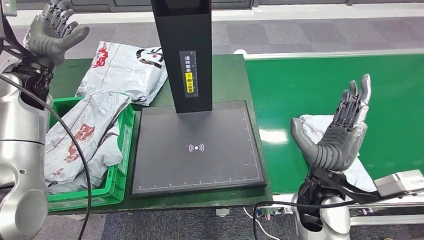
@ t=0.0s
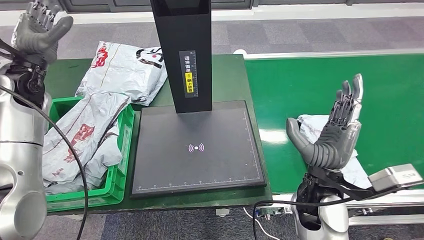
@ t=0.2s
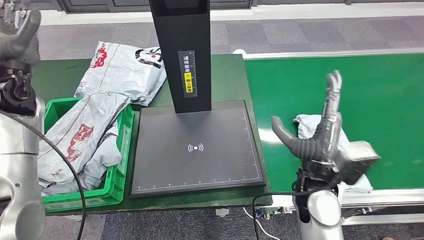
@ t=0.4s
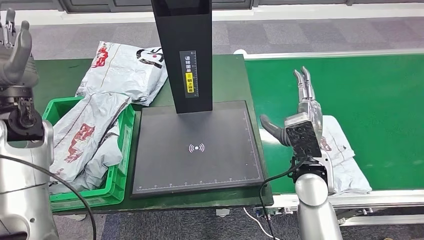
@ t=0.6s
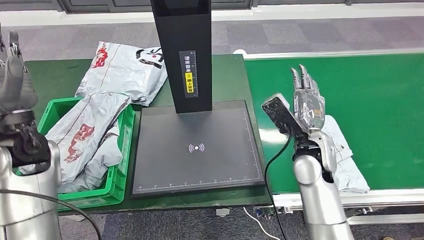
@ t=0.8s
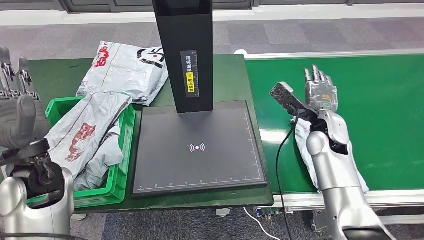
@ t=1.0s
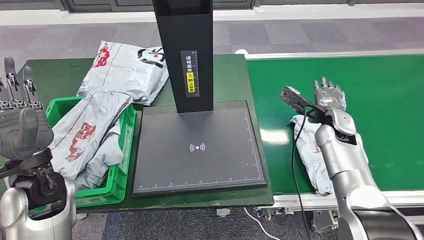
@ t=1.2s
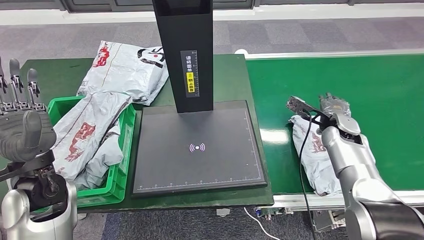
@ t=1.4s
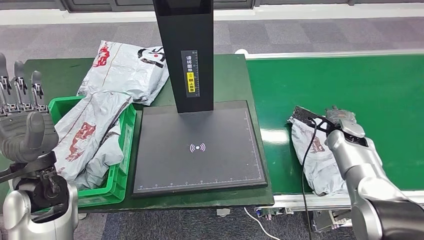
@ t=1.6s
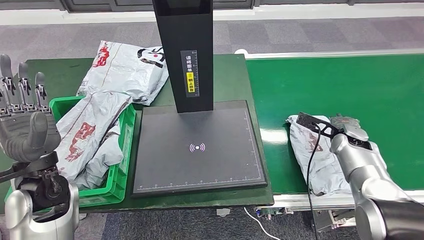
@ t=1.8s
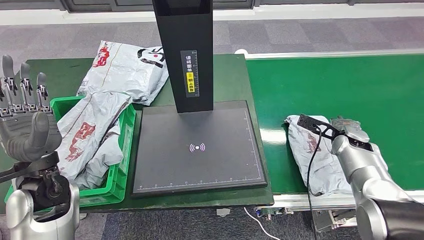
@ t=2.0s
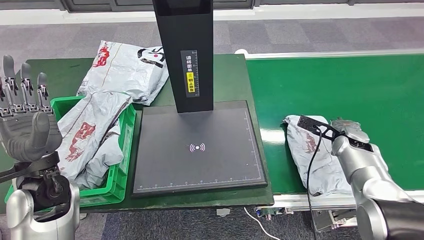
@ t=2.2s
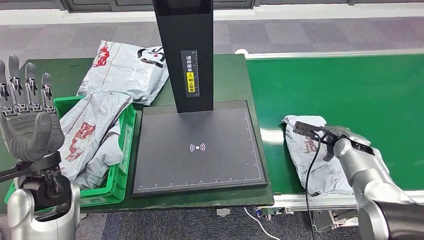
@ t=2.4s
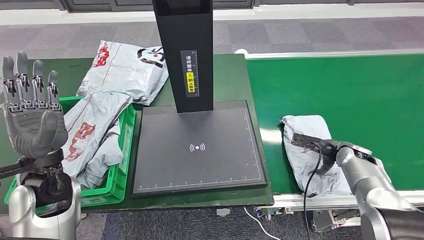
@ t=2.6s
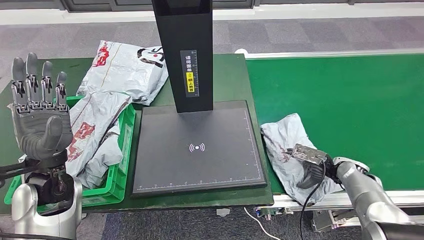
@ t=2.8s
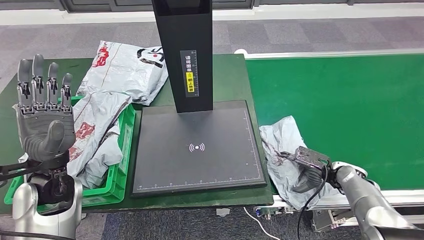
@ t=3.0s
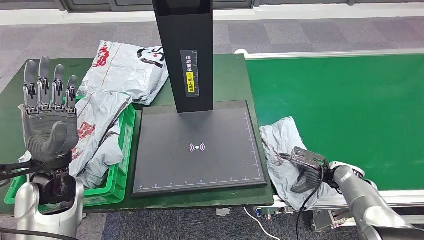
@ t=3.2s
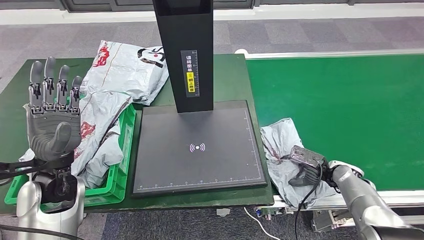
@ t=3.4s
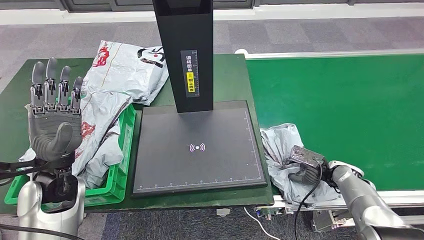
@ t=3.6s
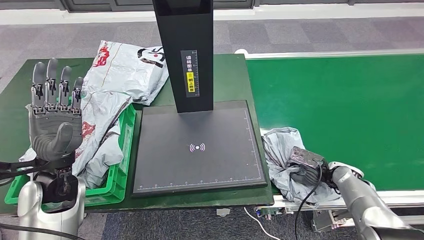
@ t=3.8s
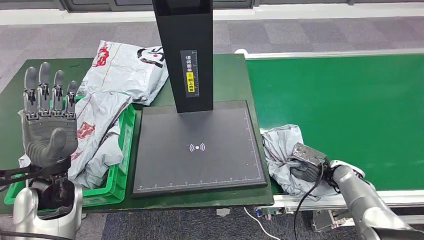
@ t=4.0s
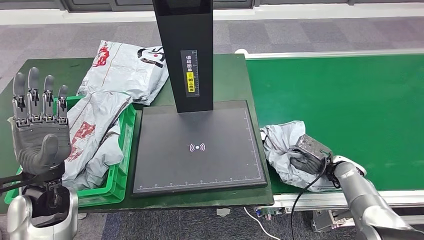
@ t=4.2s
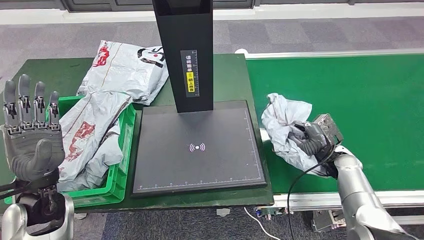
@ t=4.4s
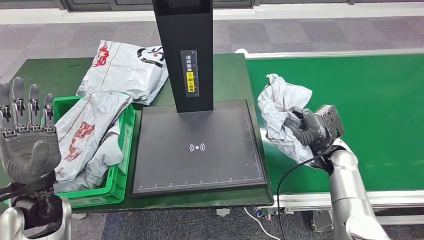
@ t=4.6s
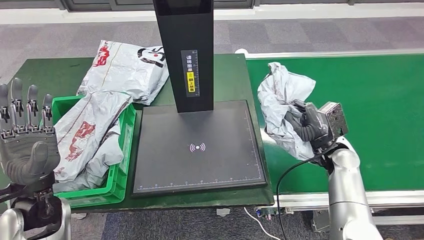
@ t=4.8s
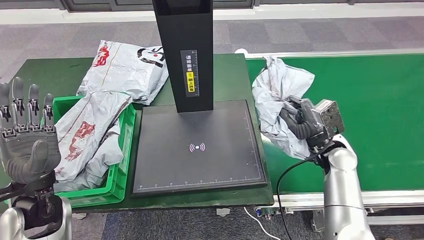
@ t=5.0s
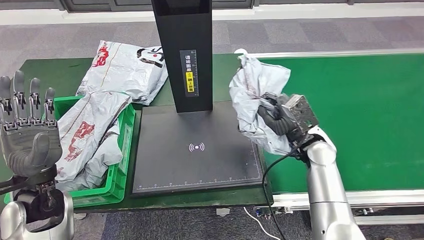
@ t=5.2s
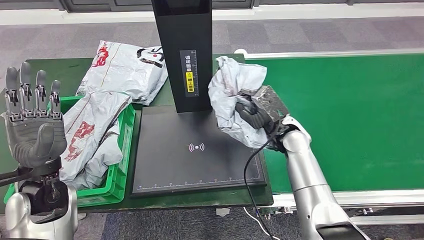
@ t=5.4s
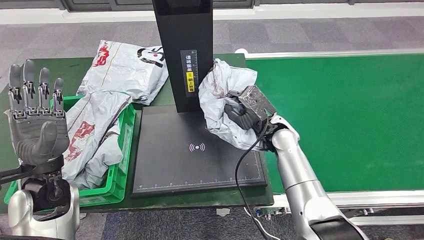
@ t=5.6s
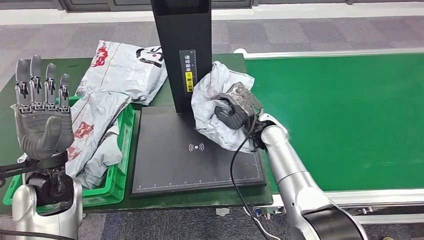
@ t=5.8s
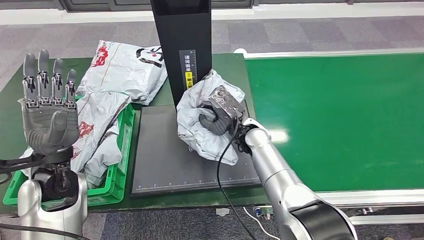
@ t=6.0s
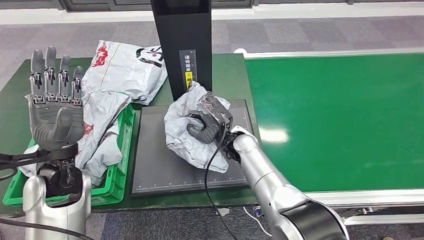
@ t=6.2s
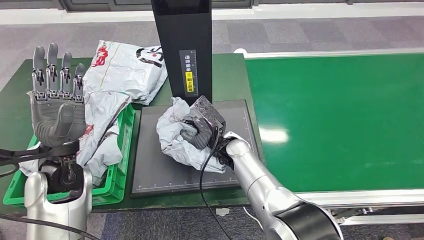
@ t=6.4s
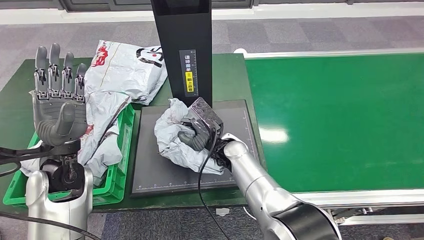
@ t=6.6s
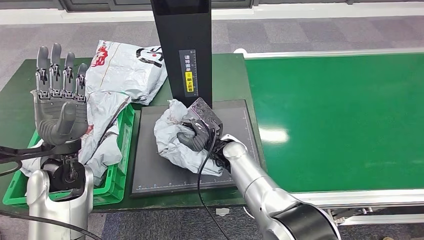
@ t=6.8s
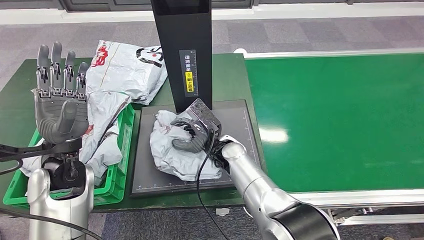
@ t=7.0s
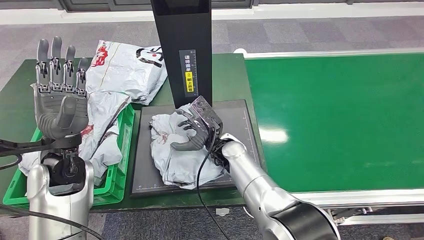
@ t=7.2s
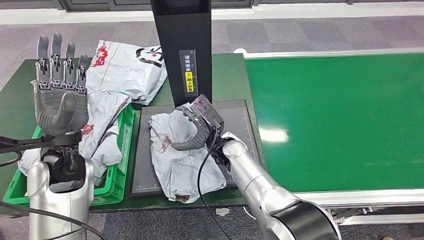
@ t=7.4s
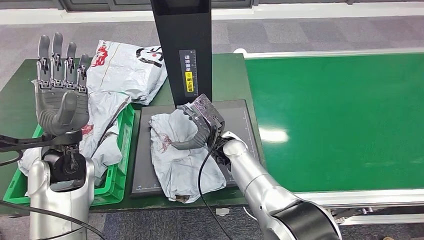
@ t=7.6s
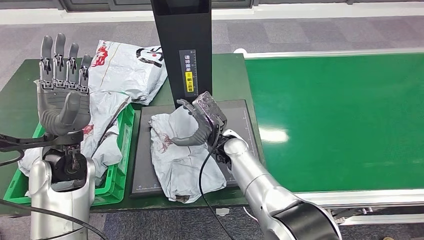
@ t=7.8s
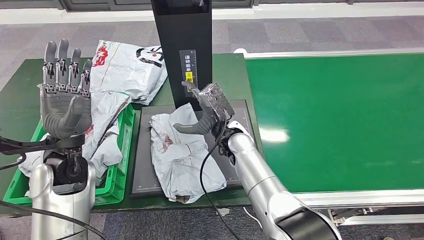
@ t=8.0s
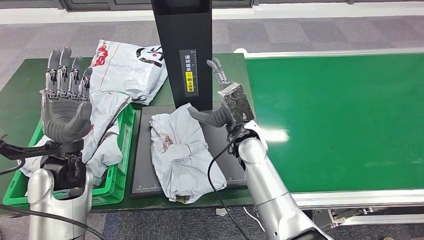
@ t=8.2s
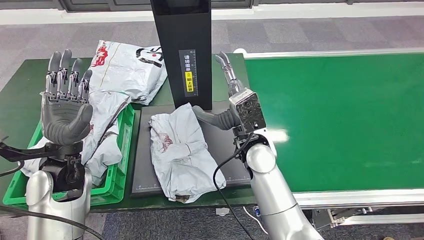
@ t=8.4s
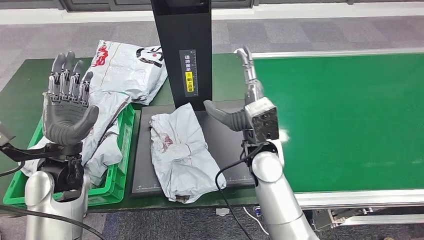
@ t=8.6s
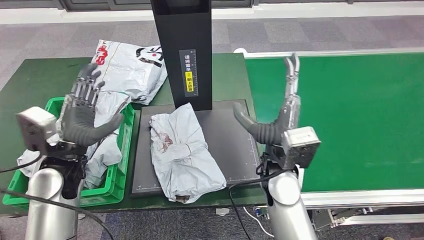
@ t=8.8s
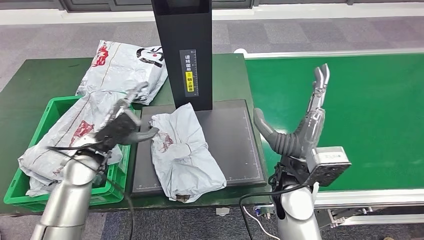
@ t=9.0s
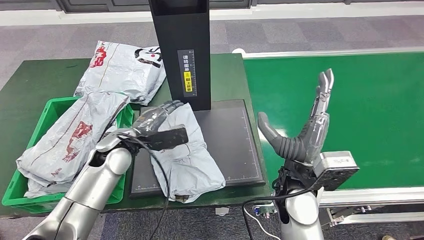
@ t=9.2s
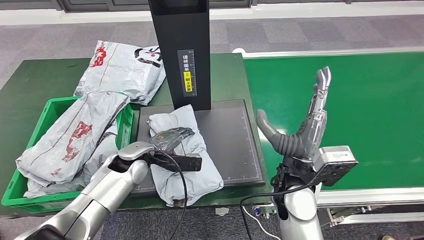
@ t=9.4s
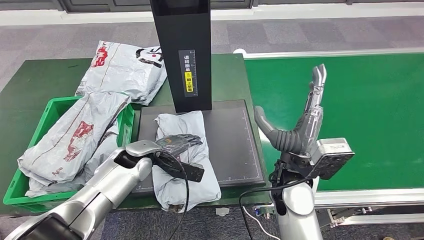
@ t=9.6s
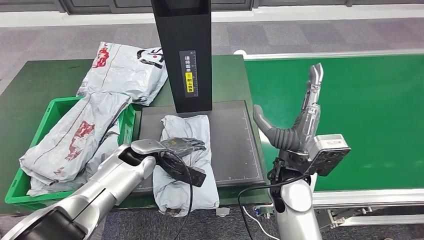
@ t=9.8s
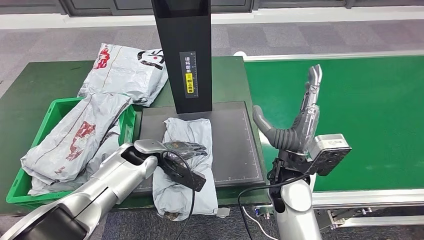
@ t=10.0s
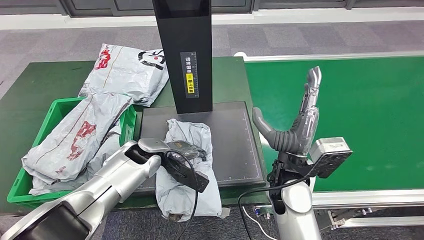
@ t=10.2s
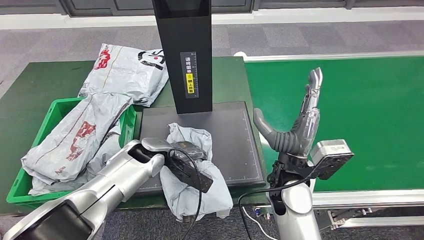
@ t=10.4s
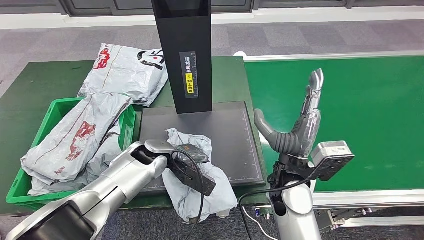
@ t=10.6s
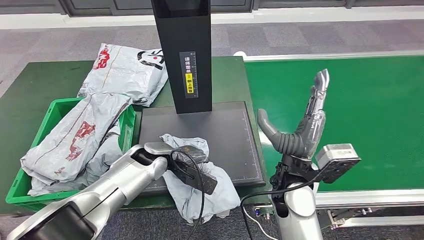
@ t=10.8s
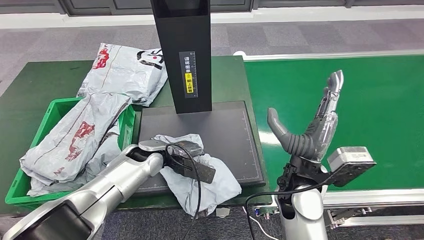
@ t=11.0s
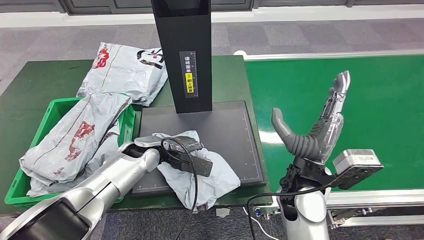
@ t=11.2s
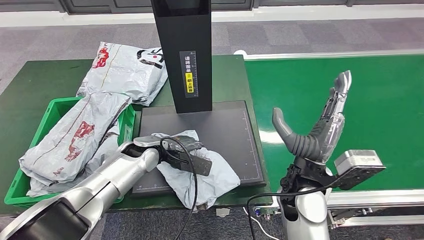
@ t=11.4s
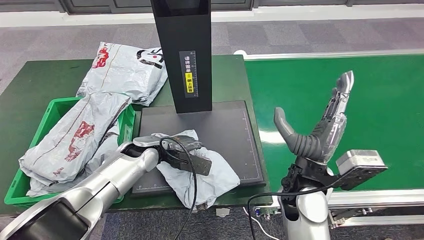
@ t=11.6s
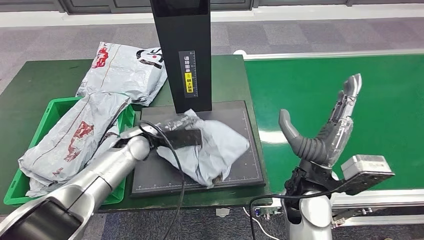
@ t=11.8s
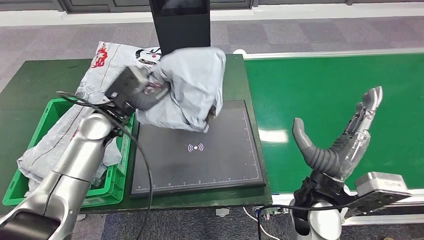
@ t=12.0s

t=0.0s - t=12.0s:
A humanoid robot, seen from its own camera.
Step, t=2.6s - t=5.4s: Pick up the parcel from the conveyor belt.
Step, t=5.6s - t=8.8s: Place the parcel onto the inbound machine.
t=1.6s - t=3.0s: The right hand shifts roughly 15 cm downward and backward.
t=3.0s - t=4.4s: The right hand moves approximately 5 cm.

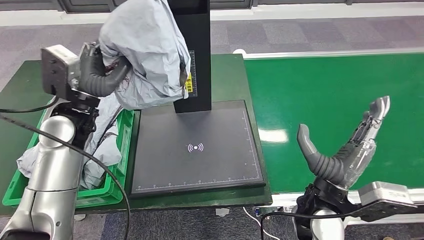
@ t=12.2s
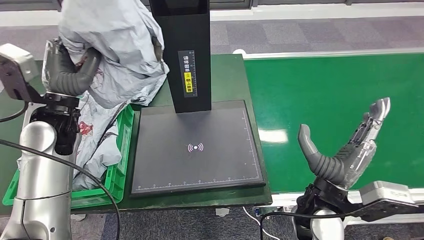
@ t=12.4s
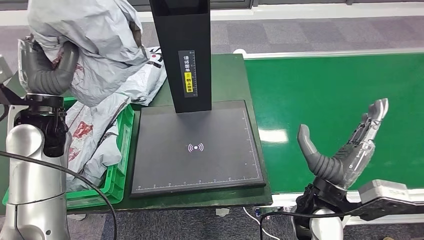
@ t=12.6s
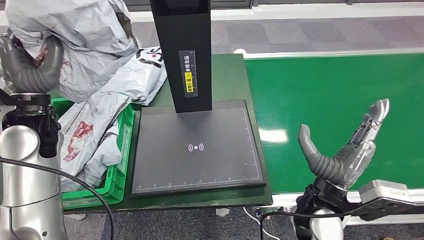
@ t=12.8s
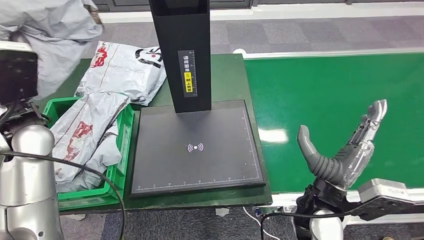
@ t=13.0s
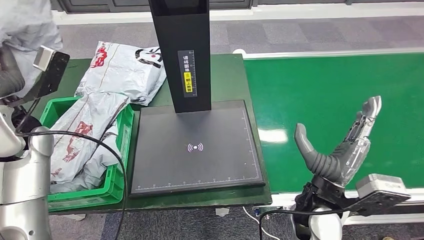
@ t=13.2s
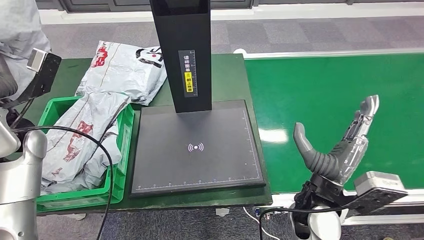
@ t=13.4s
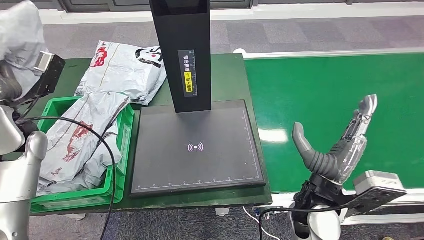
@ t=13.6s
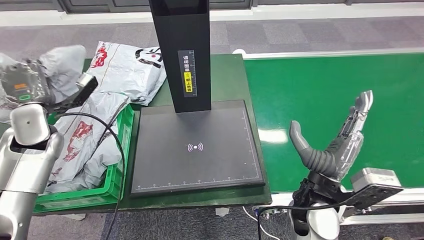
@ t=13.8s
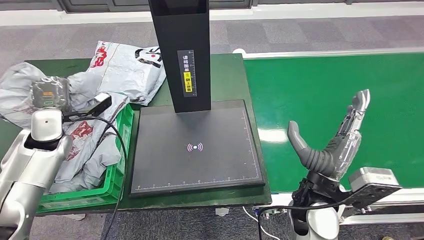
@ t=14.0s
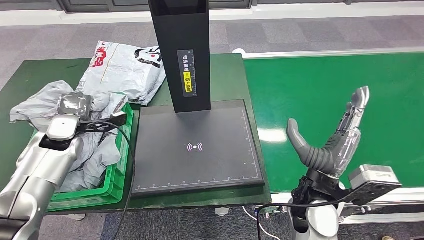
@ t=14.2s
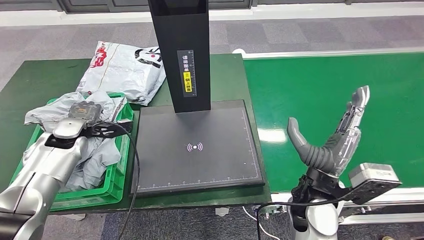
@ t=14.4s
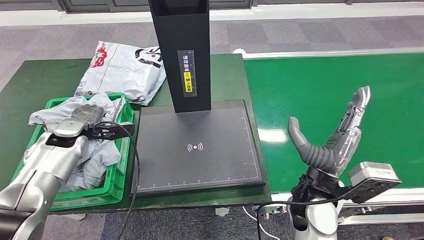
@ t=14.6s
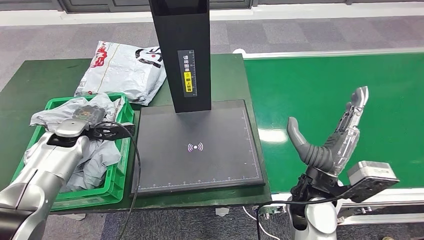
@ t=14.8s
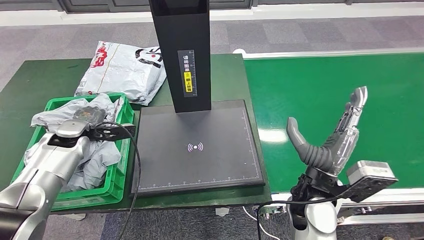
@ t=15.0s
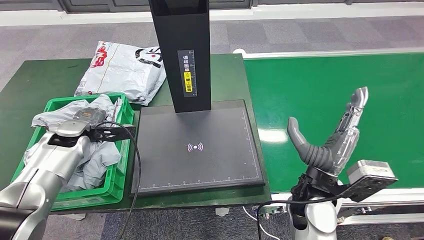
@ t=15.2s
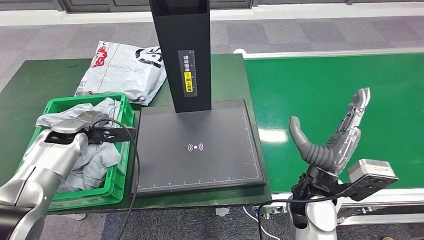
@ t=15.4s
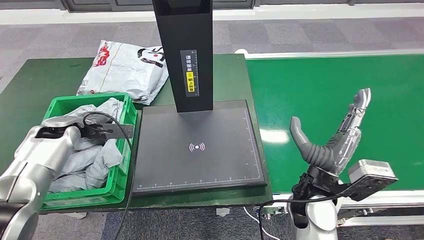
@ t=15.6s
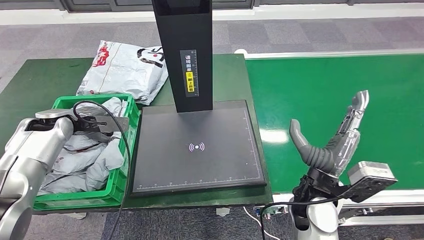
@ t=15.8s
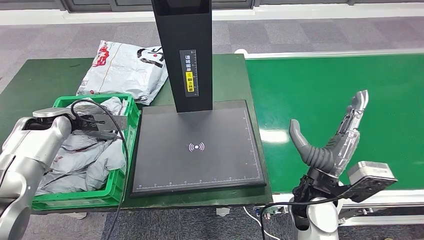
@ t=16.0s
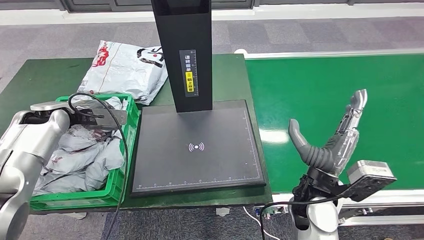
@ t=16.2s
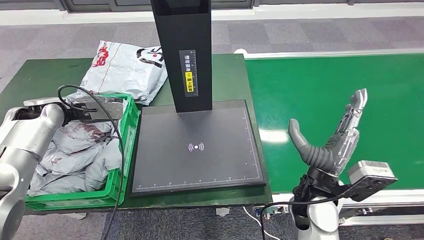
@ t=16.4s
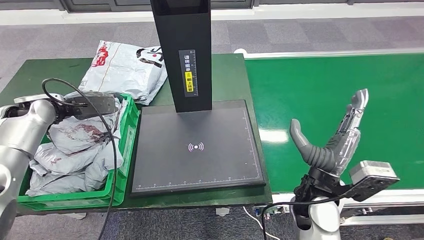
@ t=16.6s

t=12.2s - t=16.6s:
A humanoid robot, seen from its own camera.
Step, t=12.6s - t=16.6s: Place the parcel into the delivery box.
t=15.2s - t=16.6s: The left hand shifts some 10 cm upward and to the left.
